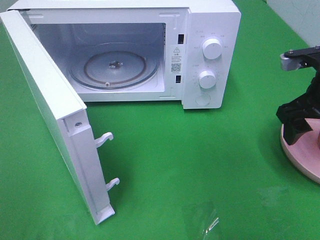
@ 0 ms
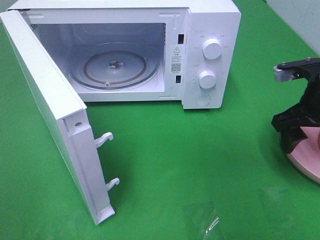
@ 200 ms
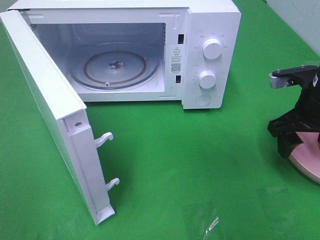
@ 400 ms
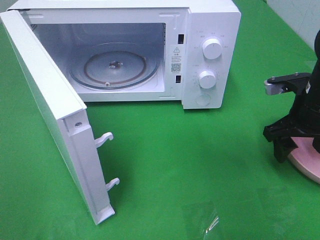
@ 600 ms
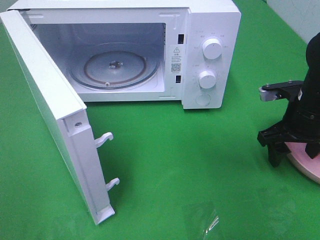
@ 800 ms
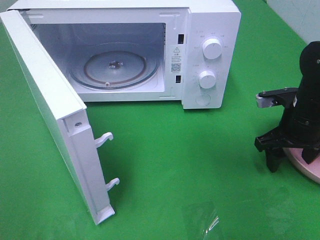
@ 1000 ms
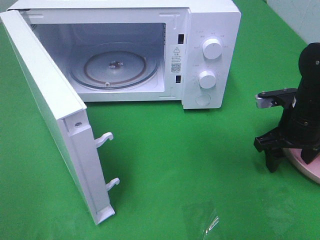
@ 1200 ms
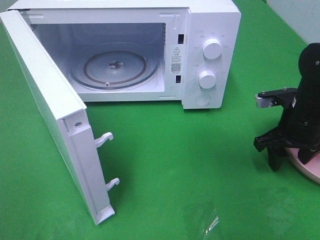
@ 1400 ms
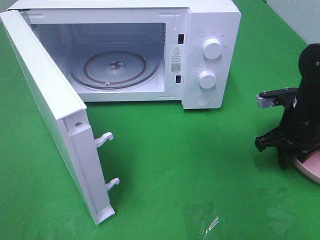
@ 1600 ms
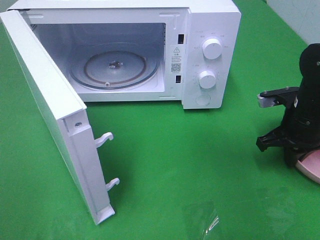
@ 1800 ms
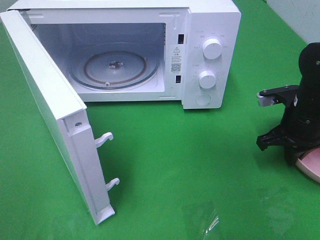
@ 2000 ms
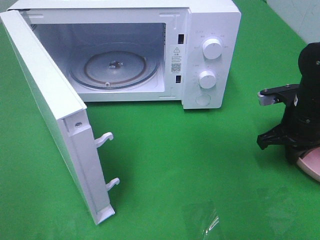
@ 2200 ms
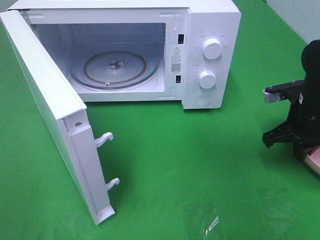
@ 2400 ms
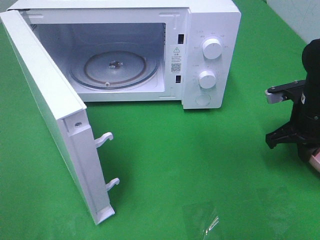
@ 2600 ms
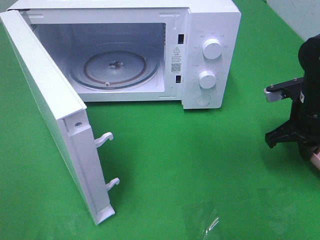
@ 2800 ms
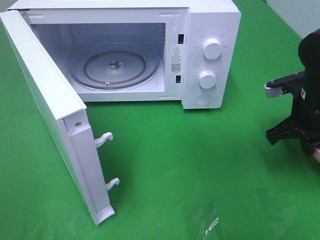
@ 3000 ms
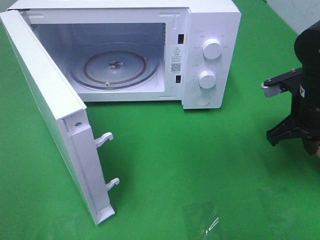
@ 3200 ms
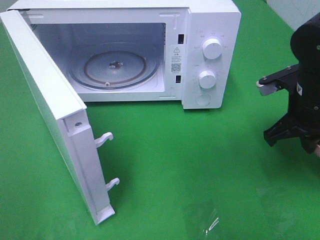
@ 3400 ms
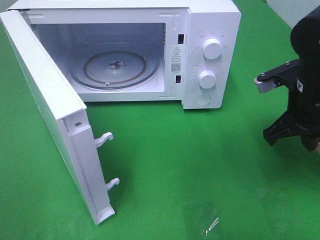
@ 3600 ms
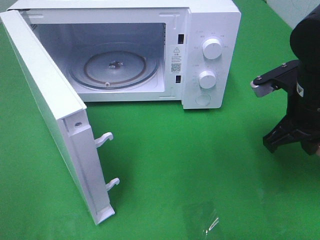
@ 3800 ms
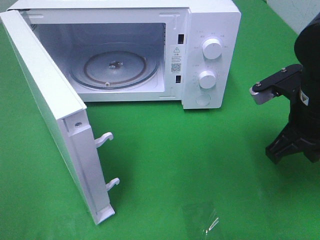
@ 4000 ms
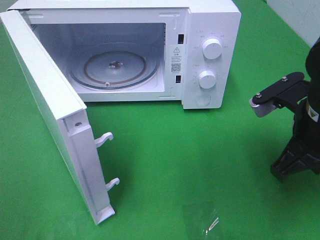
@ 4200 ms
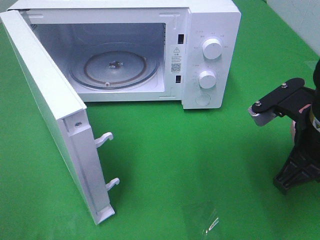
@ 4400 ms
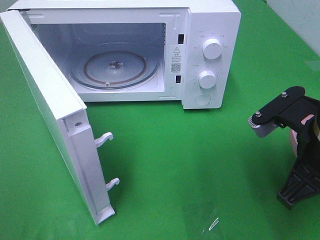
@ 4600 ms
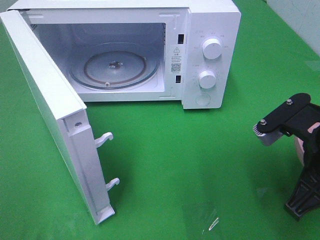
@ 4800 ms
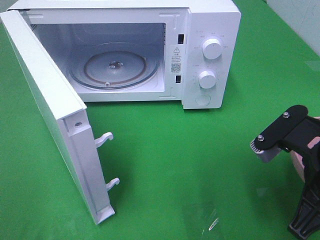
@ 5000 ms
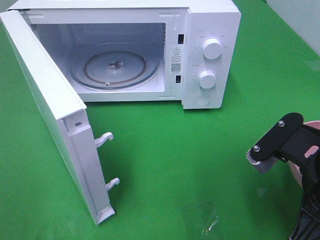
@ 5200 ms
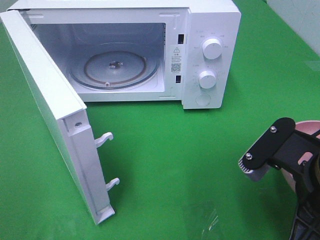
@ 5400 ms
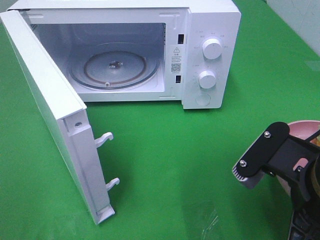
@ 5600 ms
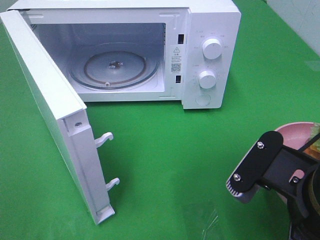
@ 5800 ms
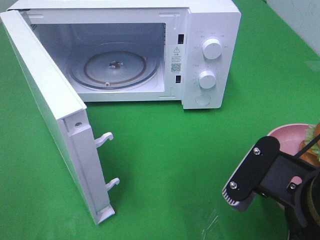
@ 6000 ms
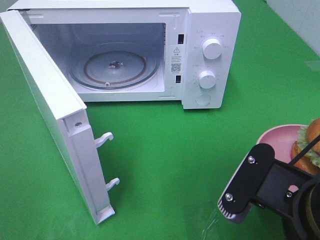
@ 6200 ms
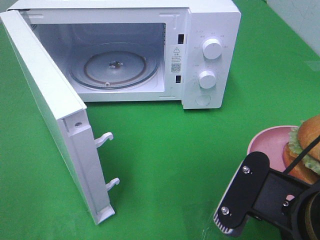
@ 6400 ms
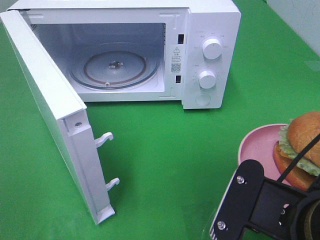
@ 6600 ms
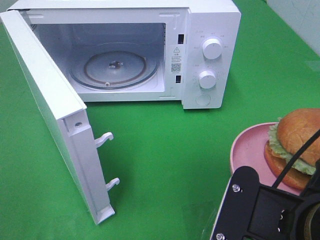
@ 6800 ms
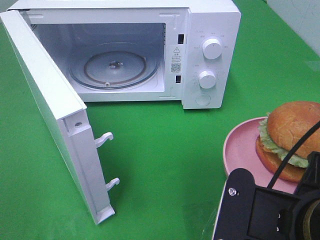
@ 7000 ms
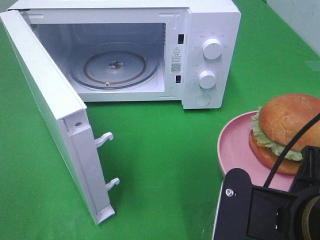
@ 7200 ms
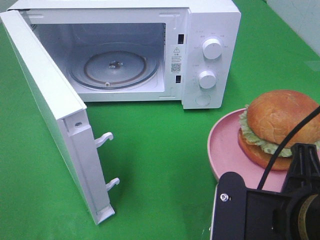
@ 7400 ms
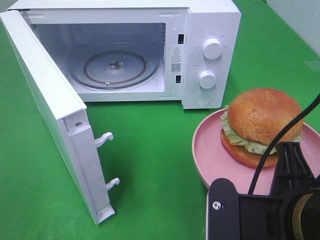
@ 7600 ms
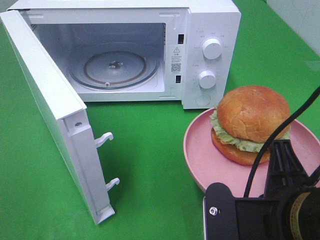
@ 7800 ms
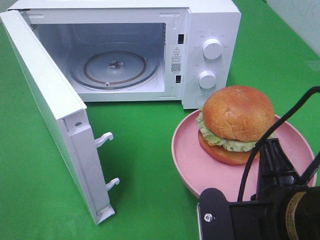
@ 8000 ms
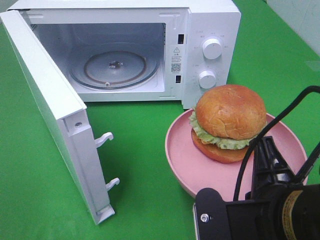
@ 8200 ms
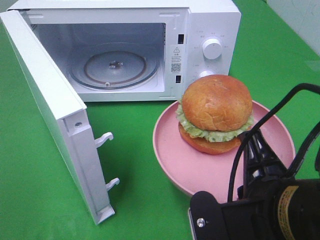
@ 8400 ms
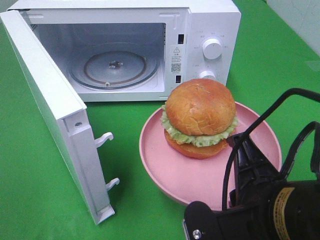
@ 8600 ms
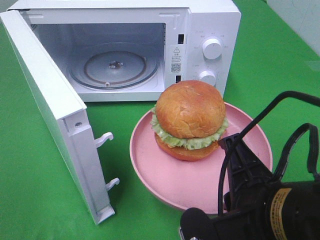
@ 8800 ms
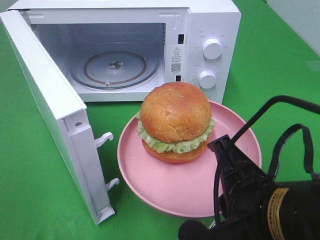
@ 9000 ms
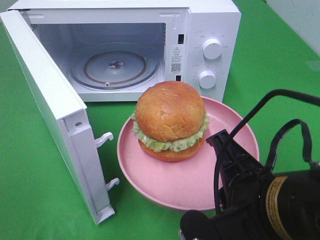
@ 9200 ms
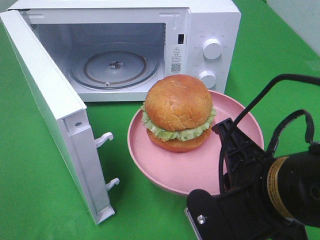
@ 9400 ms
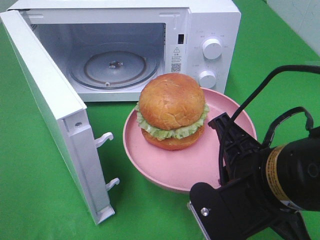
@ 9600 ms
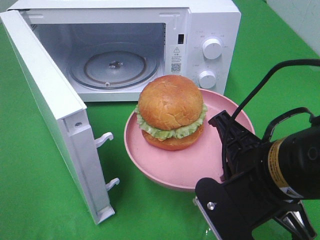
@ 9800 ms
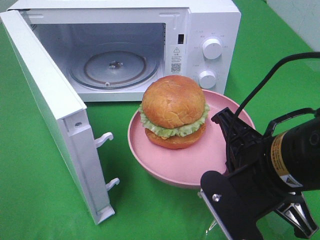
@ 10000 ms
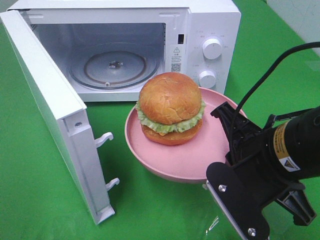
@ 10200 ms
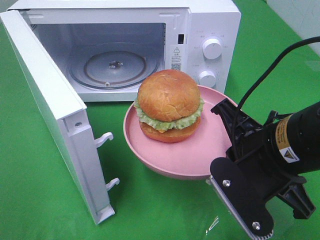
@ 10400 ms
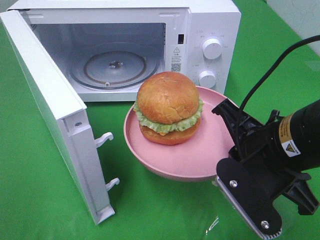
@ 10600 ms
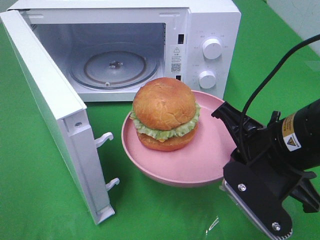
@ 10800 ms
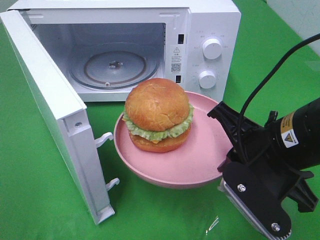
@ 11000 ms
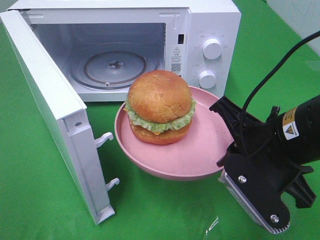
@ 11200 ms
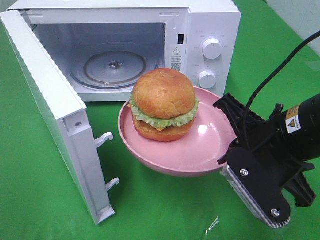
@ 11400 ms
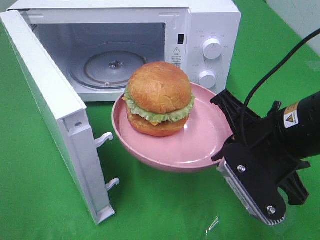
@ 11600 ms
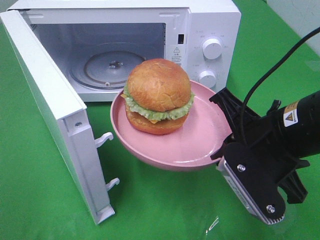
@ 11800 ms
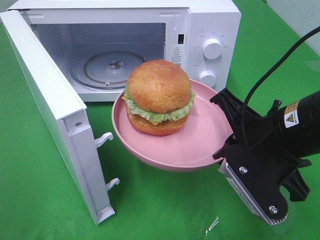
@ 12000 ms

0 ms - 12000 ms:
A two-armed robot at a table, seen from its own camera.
Task of the whole recording: Heat the burger.
Step, 0 ms - 2200 ms: Right hand: grab the plate with the hamburger.
0 ms - 1600 ms: The right gripper is displaced downward by roughly 10 cm, and closes up.
1600 ms - 3000 ms: The grippers make only small movements.
3000 ms - 4400 ms: The right gripper travels backward and to the left by some 10 cm.
4400 ms - 6000 ms: The right gripper travels backward by roughly 10 cm.
9000 ms - 10400 ms: The right gripper travels forward by approximately 10 cm.
10400 ms - 12000 ms: There are only small adjustments of the grippers.

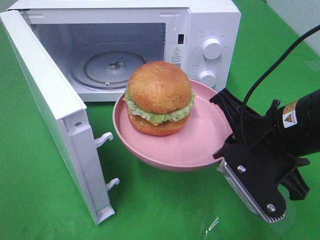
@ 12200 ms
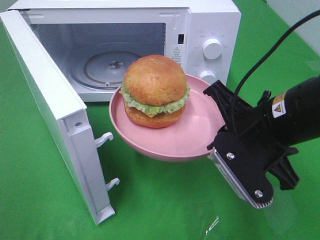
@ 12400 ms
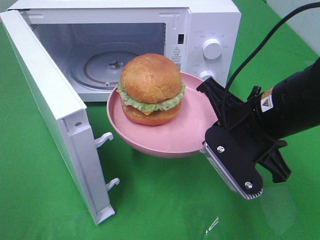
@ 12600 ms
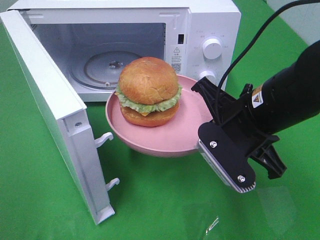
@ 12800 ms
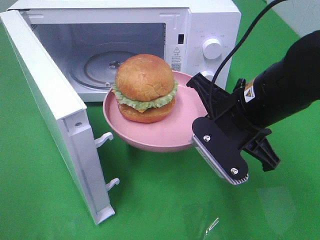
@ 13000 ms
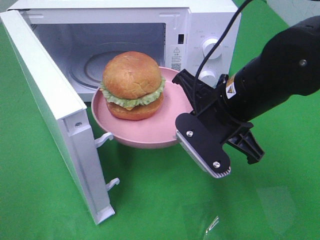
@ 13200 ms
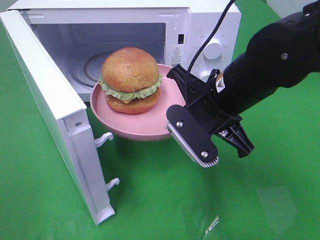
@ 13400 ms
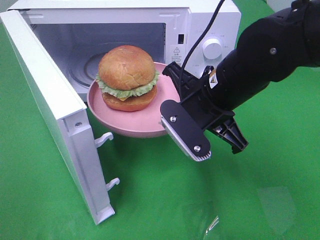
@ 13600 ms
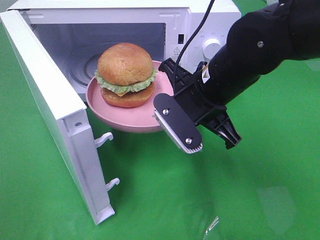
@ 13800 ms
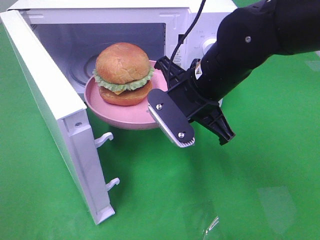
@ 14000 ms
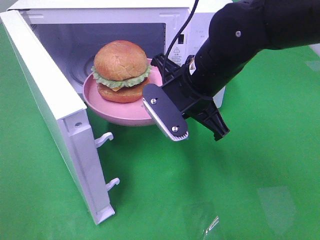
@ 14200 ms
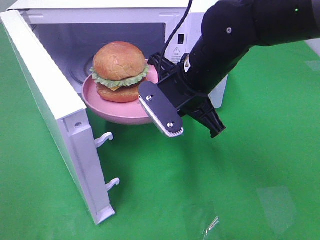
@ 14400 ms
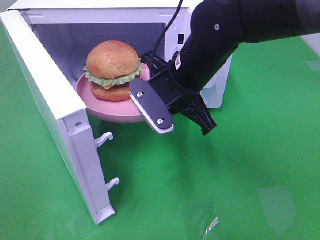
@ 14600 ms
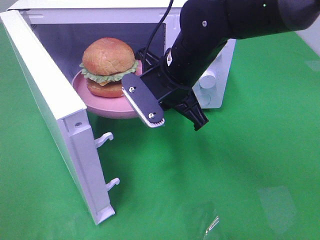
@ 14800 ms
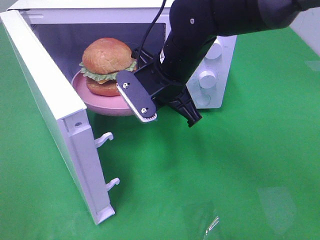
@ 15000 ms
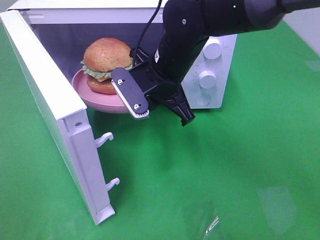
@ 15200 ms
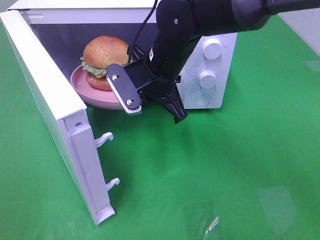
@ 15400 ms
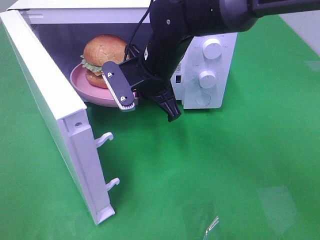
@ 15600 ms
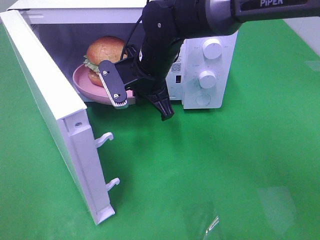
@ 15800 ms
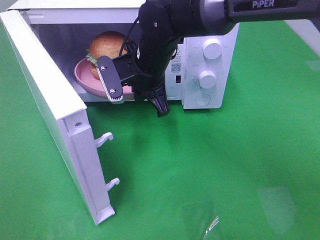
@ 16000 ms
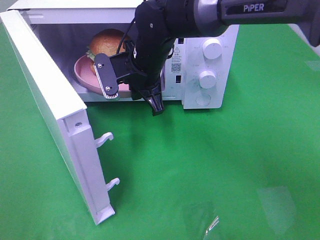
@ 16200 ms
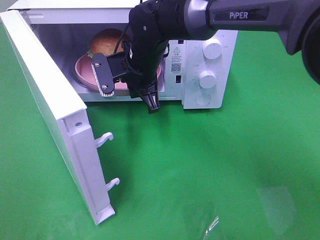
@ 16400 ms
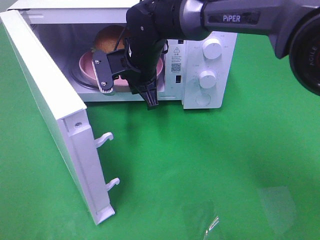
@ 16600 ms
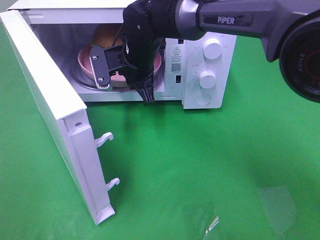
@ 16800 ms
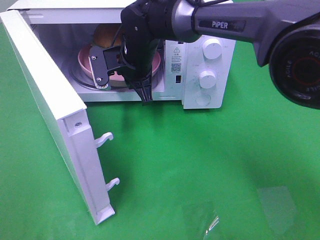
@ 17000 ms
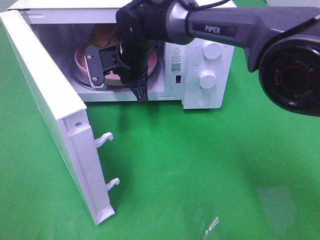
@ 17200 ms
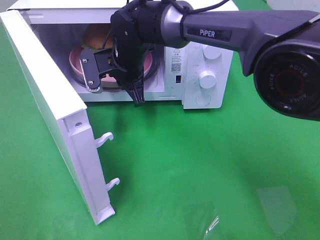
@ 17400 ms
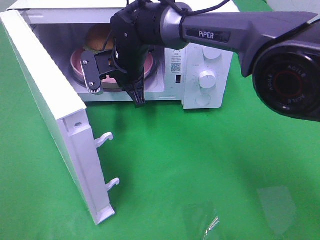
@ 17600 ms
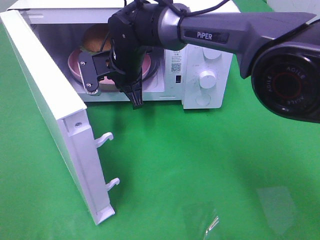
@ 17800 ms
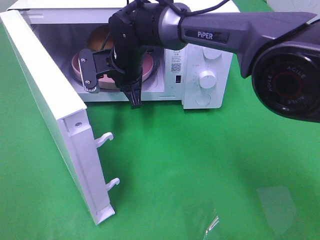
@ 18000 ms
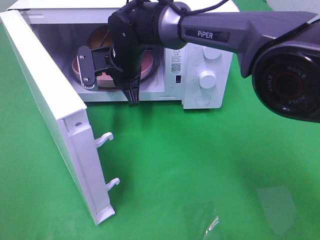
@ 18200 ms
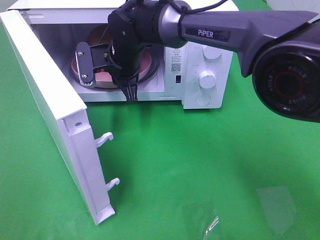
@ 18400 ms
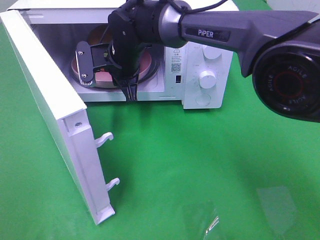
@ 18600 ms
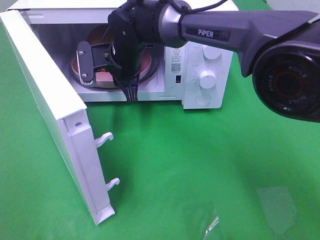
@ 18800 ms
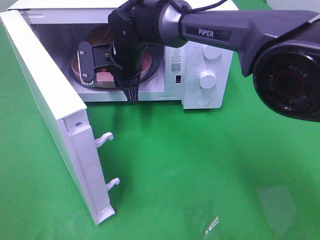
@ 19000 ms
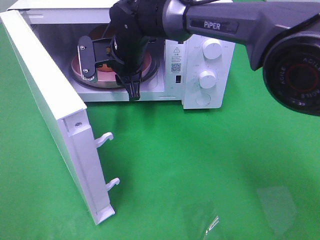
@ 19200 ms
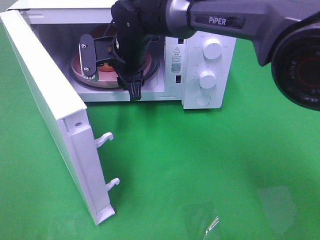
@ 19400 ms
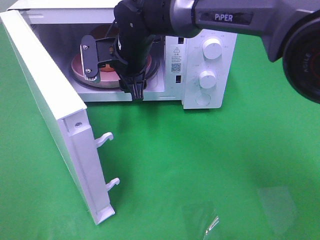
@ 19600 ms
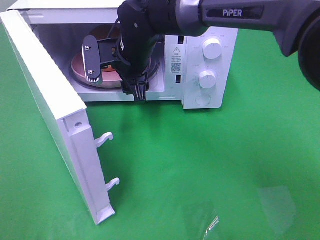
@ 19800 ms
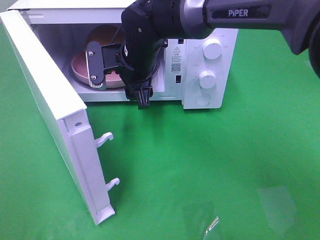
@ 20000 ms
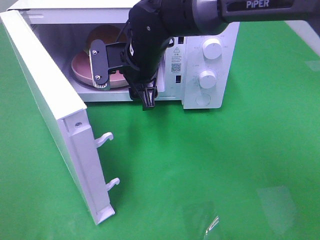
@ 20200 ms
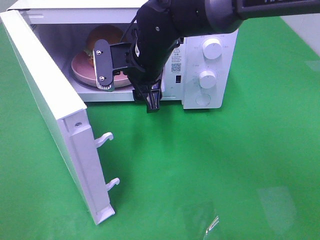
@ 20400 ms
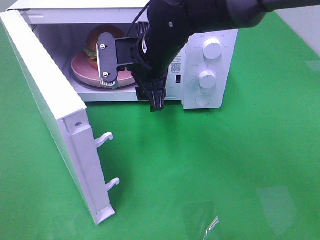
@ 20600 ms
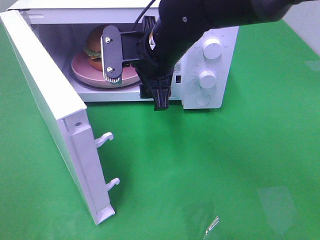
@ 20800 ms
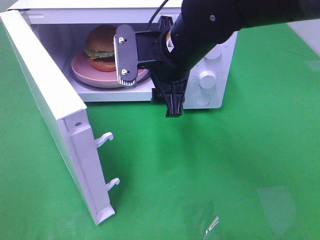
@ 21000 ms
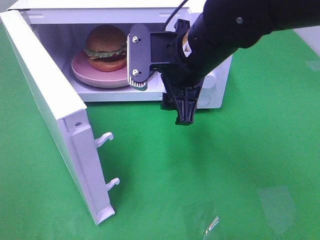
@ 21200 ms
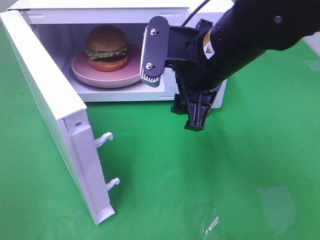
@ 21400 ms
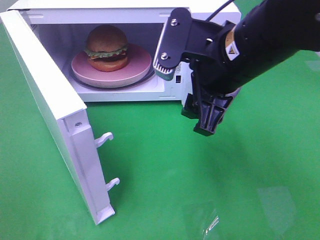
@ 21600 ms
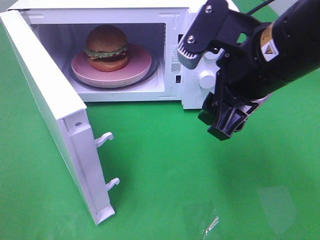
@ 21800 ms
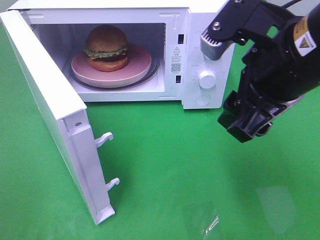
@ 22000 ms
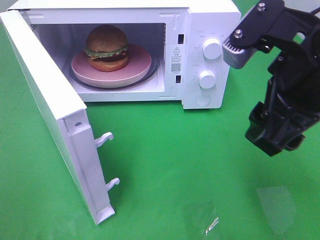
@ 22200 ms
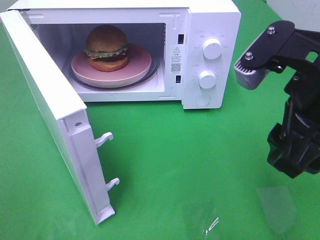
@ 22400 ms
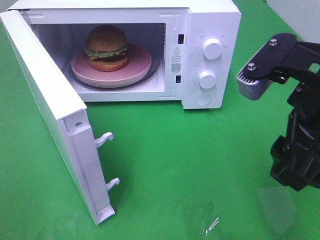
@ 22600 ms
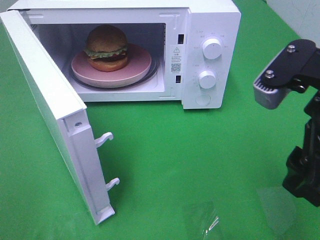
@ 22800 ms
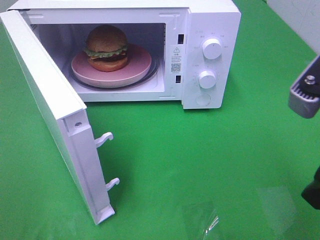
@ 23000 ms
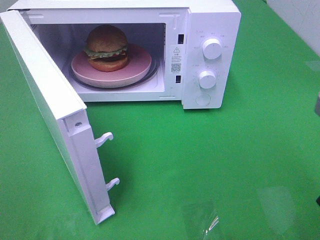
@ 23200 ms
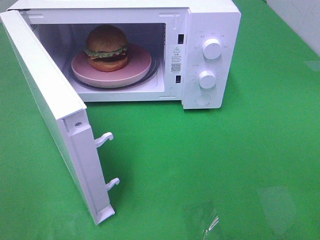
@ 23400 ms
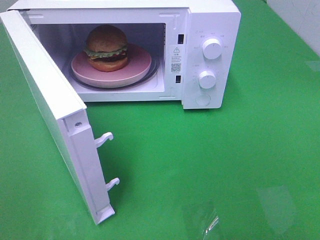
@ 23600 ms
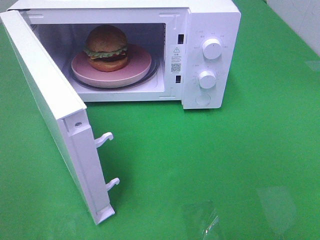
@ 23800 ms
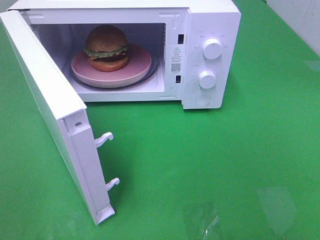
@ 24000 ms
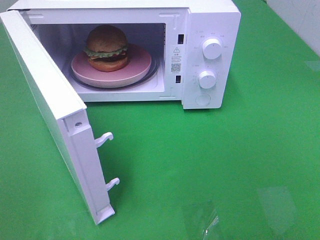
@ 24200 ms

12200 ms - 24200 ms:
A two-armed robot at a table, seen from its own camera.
Task of the whole recording: Heat the burger.
Step, 12200 ms - 18200 ms: Right hand: place the plate in the microwave.
12200 ms - 13800 ms: The right gripper travels forward and to the left by roughly 10 cm.
13800 ms - 15200 ms: The right gripper travels forward and to the left by approximately 10 cm.
15200 ms - 16600 ms: The right gripper is displaced forward by approximately 5 cm.
16600 ms - 18200 ms: There are only small adjustments of the grippers.
18200 ms - 19800 ms: The right gripper opens up.
19800 ms - 21200 ms: The right gripper is displaced backward, to the right and upward by about 15 cm.
21200 ms - 22600 ms: The right gripper moves backward and to the right, roughly 15 cm.
22600 ms - 24200 ms: The right gripper moves backward and to the right, approximately 20 cm.
